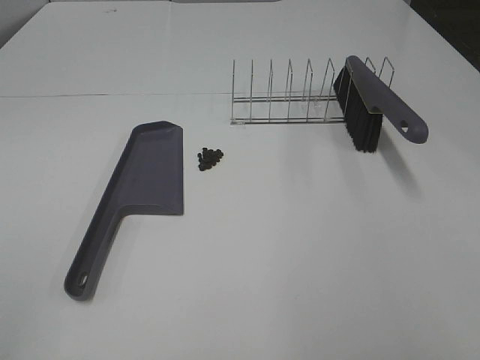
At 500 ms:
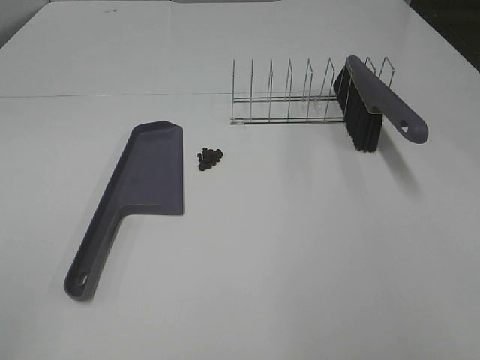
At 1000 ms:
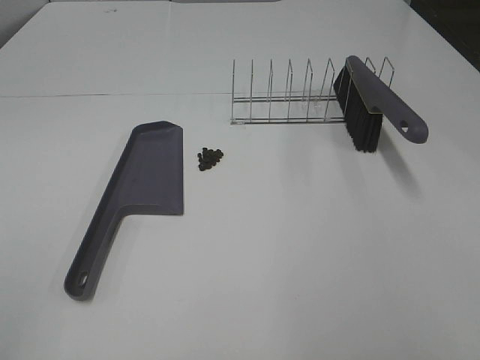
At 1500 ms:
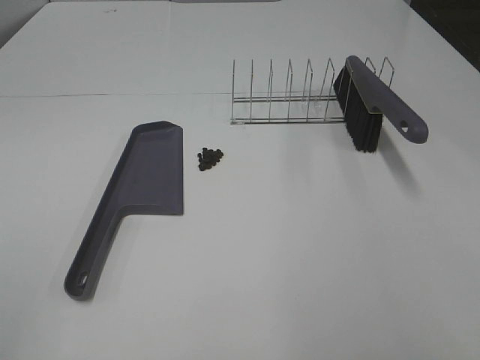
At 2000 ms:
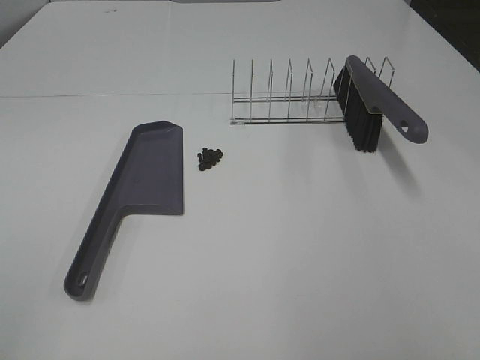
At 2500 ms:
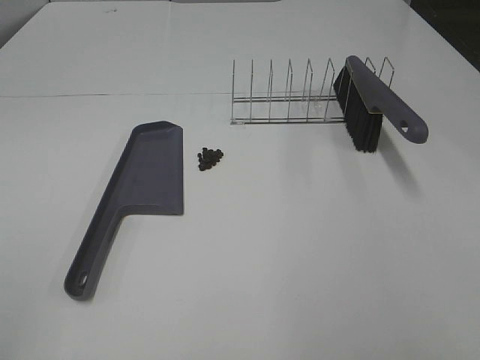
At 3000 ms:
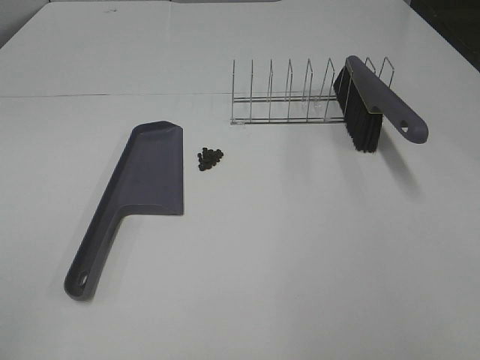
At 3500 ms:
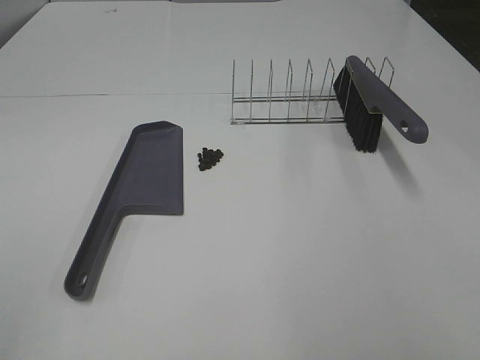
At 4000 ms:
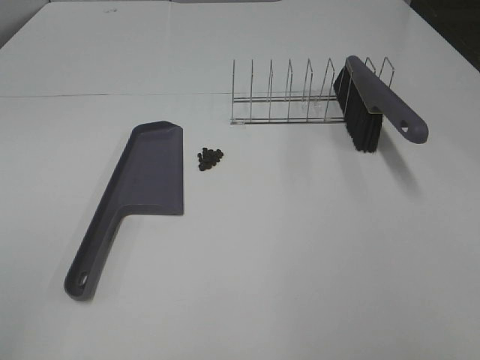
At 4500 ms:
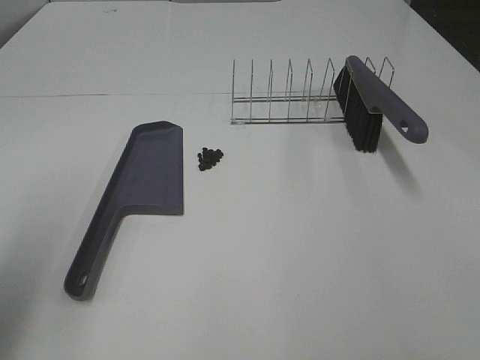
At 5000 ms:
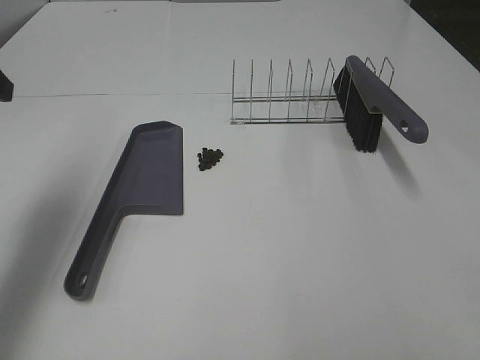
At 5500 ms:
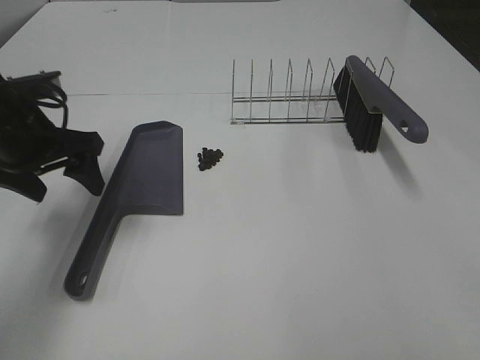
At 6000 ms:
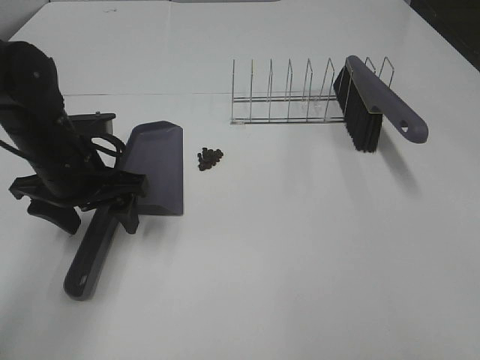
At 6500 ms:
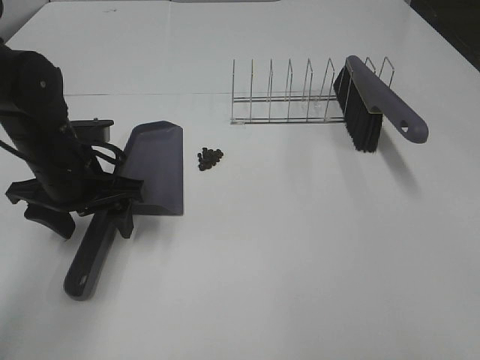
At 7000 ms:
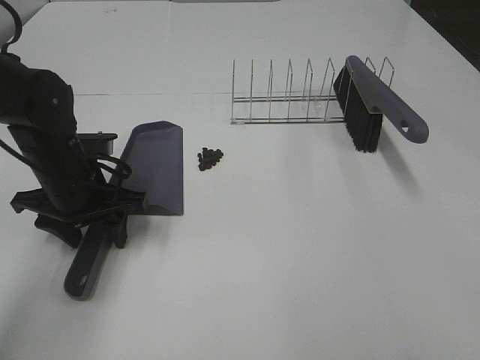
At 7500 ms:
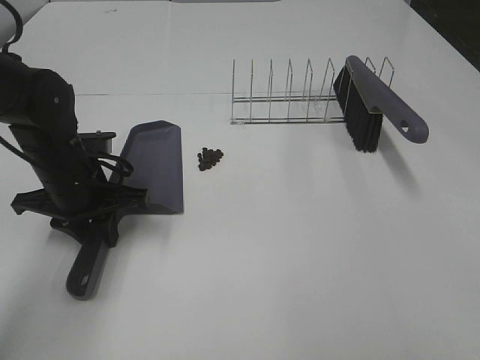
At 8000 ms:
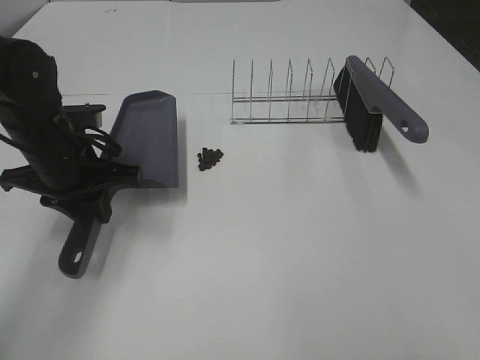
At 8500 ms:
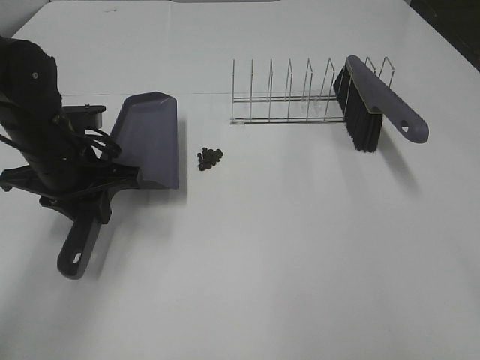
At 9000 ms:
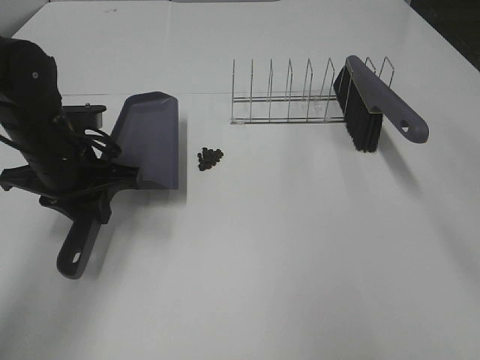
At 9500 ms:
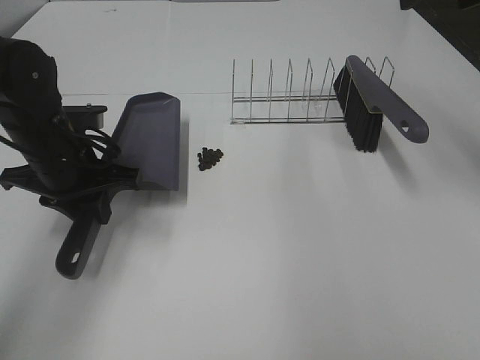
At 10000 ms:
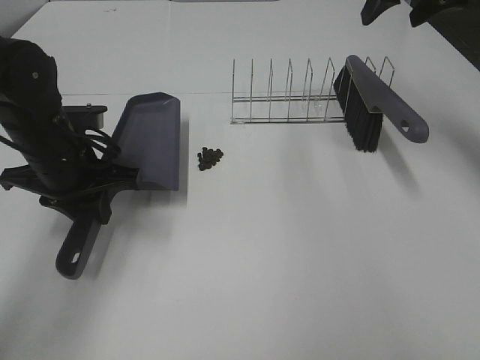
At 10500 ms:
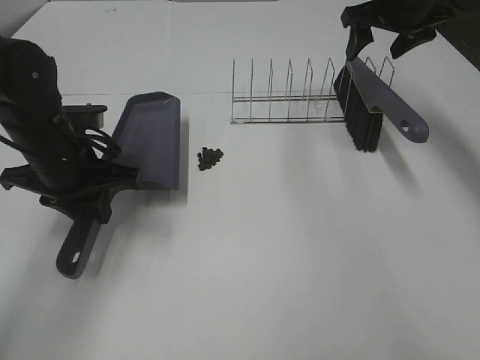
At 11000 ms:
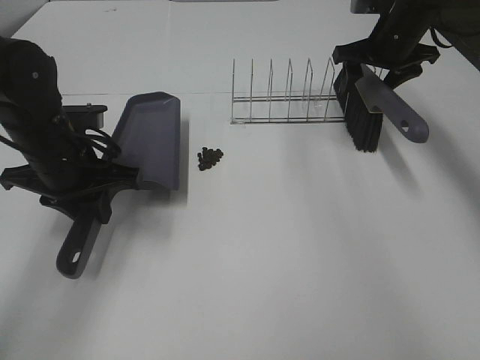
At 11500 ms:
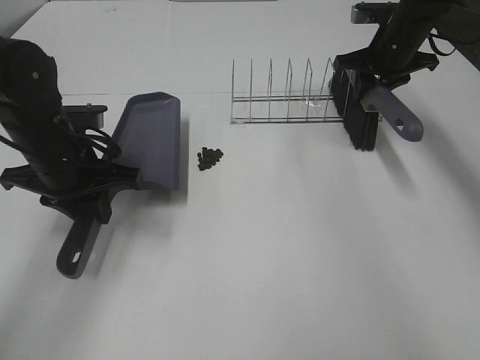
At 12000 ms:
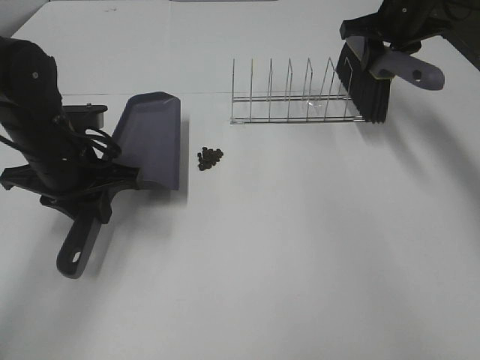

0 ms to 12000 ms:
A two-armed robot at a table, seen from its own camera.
Task of the whole recording: Sweep Coffee Bean.
Step, 0 ms to 7000 ms: Left hand: grab the dustpan.
Step, 8500 ms to 11500 ms: Right hand:grab the broom.
0 ms to 2000 ms: Both grippers stay about where they are.
4000 ms to 6000 ms: The left gripper goes some 35 cm forward, downward and to the right.
6000 ms to 8000 ms: The left gripper closes up.
8000 ms to 10000 ms: The right gripper is displaced forward by some 50 cm.
10000 ms to 12000 ms: The right gripper is displaced downward and forward by roughly 10 cm, and closes its fingers.

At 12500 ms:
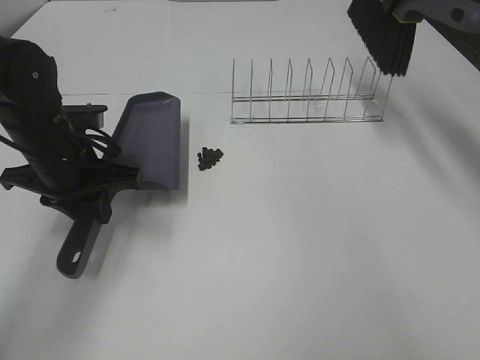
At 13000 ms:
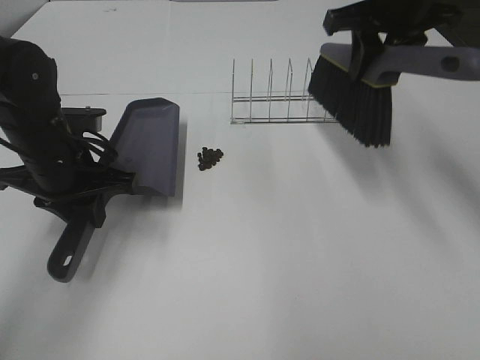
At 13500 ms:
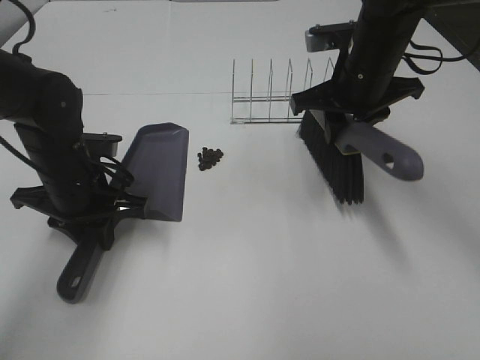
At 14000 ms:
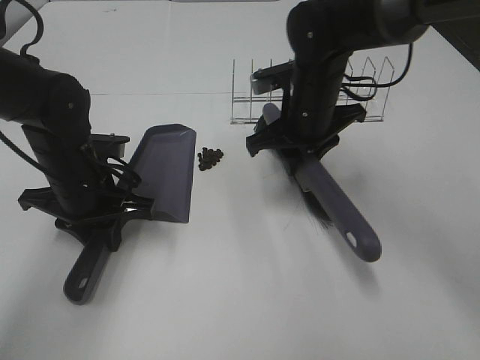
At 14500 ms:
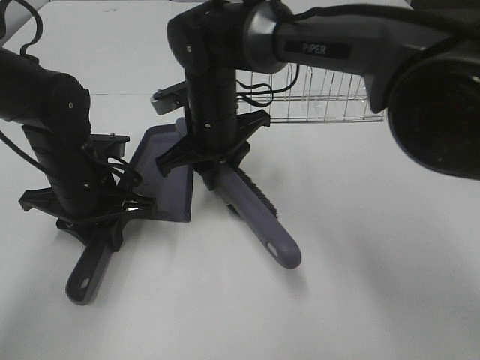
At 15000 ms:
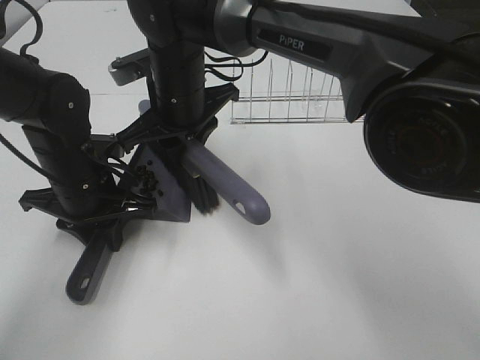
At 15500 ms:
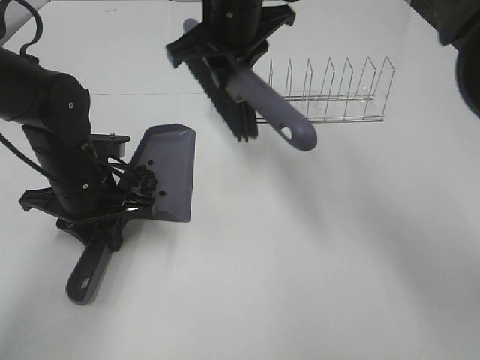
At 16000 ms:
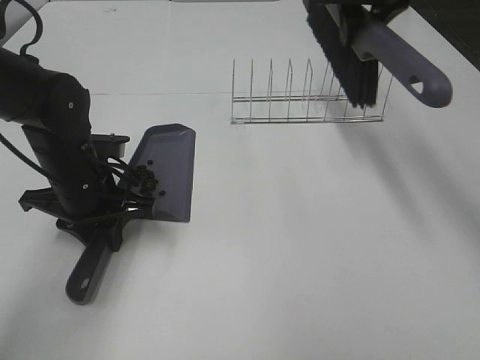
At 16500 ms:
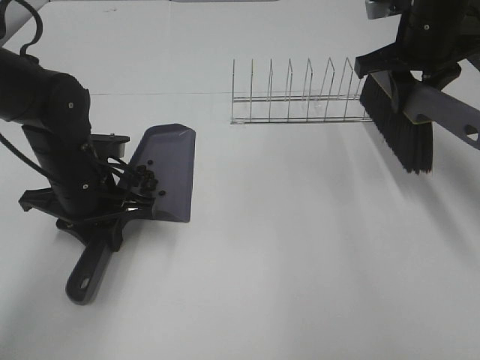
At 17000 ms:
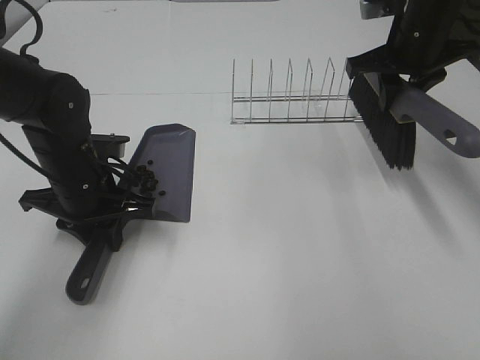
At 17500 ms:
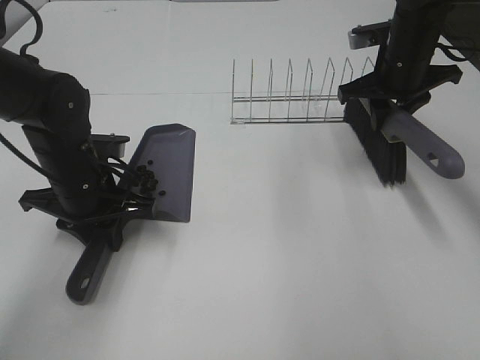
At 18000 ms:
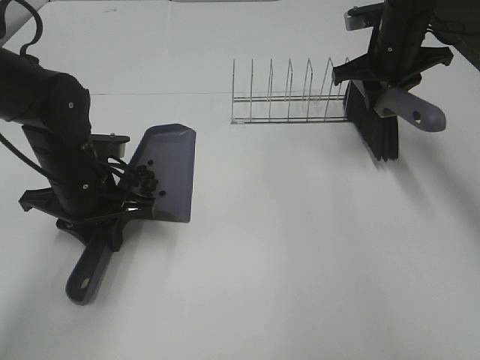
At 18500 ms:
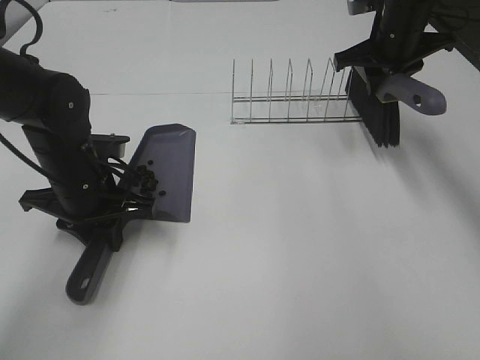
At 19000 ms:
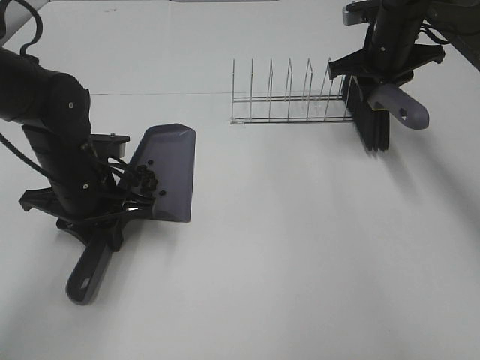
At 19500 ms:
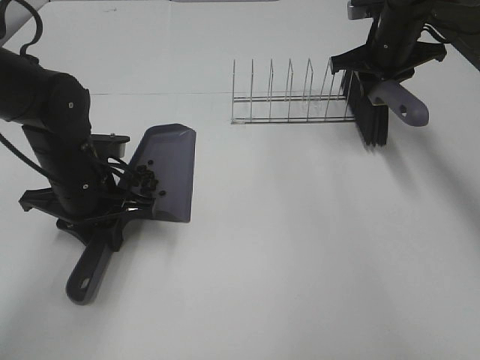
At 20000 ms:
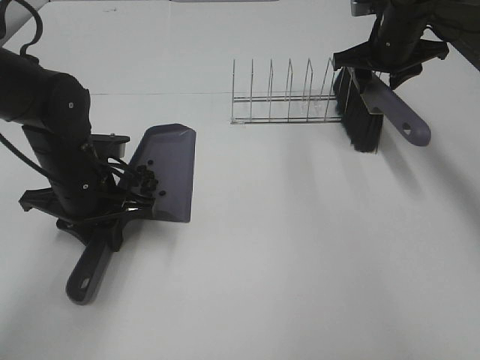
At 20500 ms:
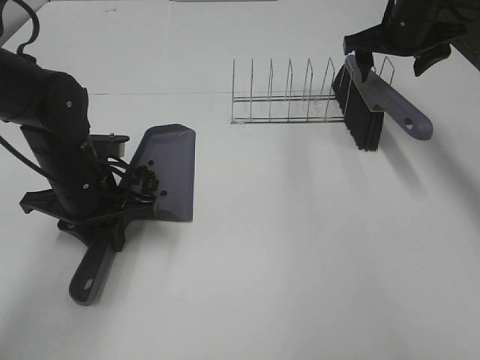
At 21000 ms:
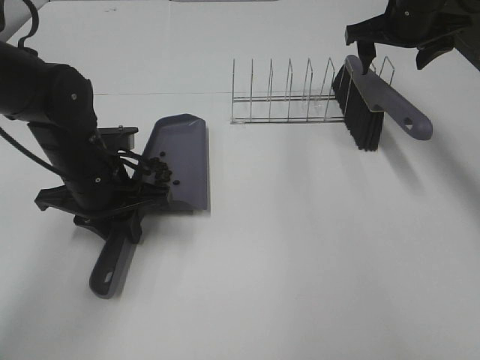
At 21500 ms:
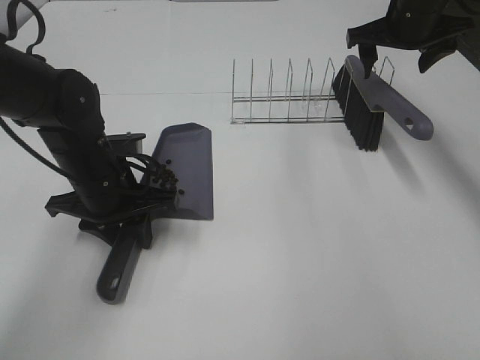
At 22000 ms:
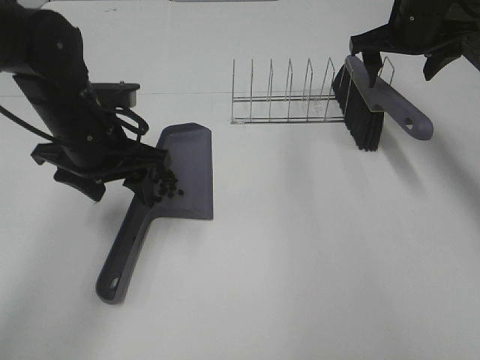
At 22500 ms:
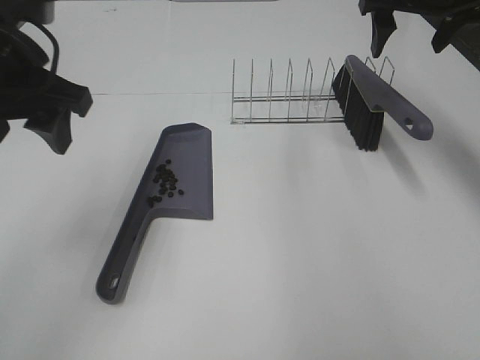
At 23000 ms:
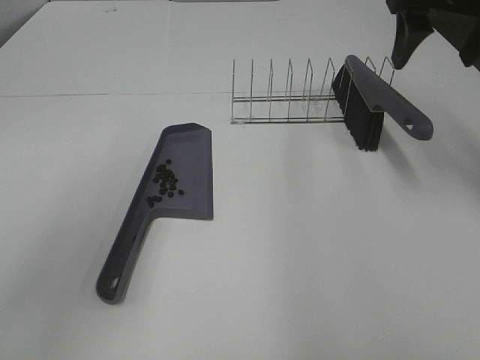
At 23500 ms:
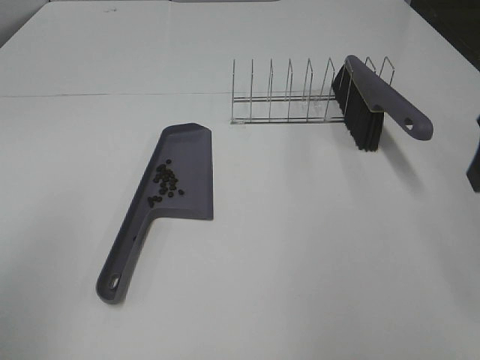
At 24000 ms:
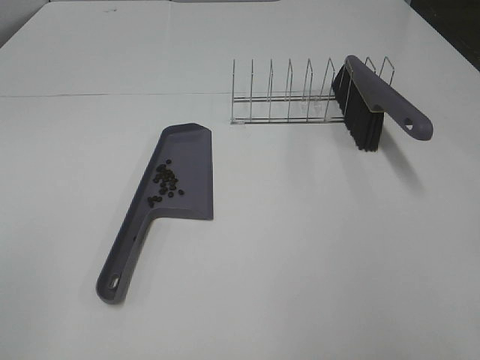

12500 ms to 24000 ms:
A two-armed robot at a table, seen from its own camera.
Task of the whole recording: Sweep Coffee Bean.
Step, 12500 ms to 15000 ms: Right hand:sweep the coffee beans into the dustpan.
Step, 15500 ms to 20000 ms: Right hand:place the broom on the rack.
Step, 20500 ms to 21500 ms: Left hand:place the dustpan on the table.
12500 ms to 14500 ms: The right gripper is displaced to the left and downward by approximately 35 cm.
14500 ms to 16500 ms: The right gripper heads to the right, covering roughly 25 cm.
16500 ms to 18500 ms: The right gripper travels forward by approximately 5 cm.
18500 ms to 20000 ms: The right gripper opens.
20000 ms to 22000 ms: The left gripper heads upward, covering roughly 5 cm, and opens up, while the right gripper moves some 5 cm, and opens its fingers.
22000 ms to 24000 ms: The left gripper heads backward and to the left, covering approximately 35 cm. Meanwhile the right gripper travels backward by some 40 cm.
